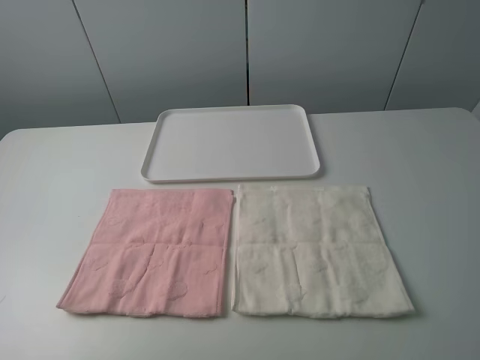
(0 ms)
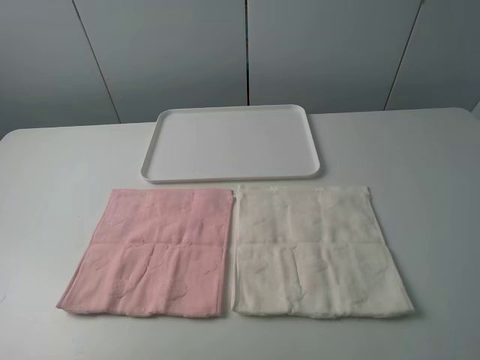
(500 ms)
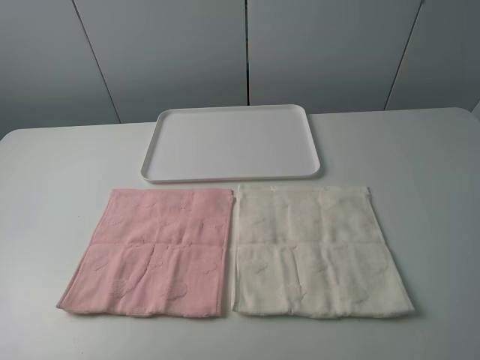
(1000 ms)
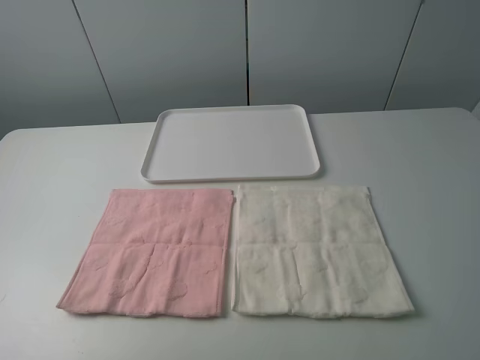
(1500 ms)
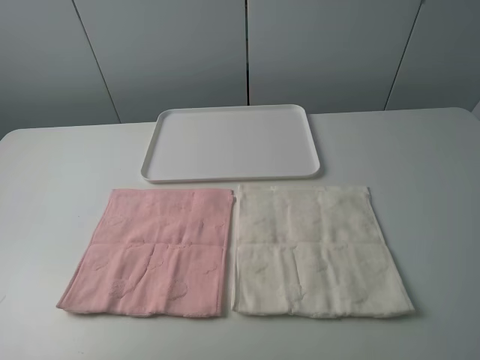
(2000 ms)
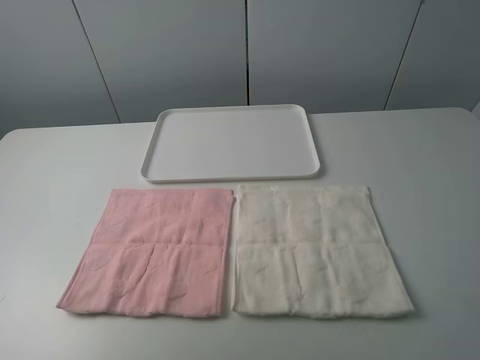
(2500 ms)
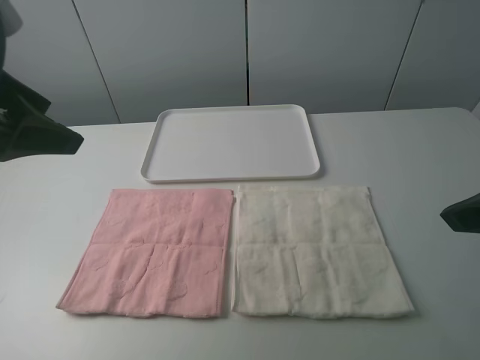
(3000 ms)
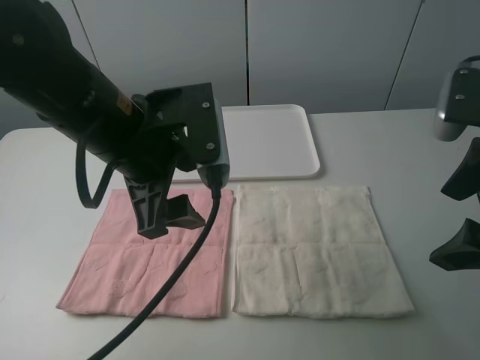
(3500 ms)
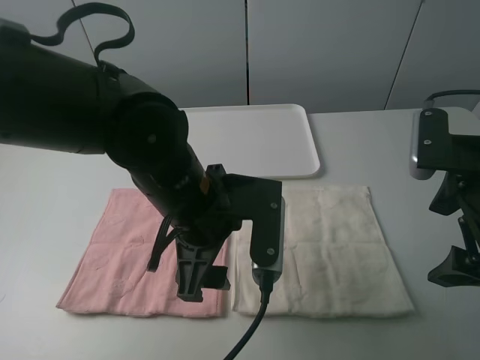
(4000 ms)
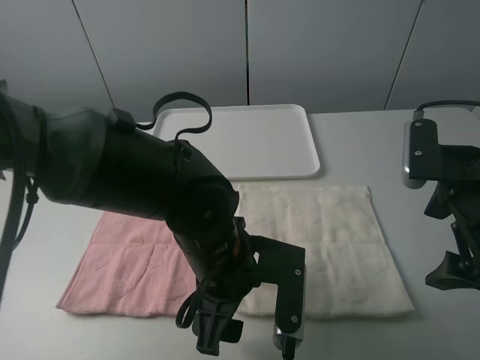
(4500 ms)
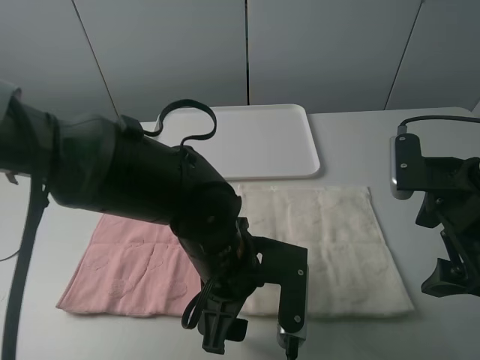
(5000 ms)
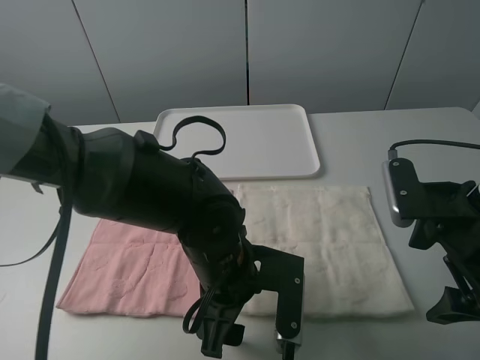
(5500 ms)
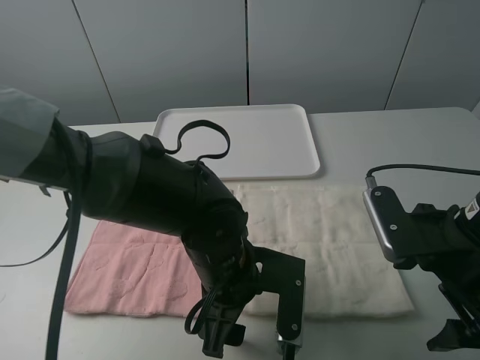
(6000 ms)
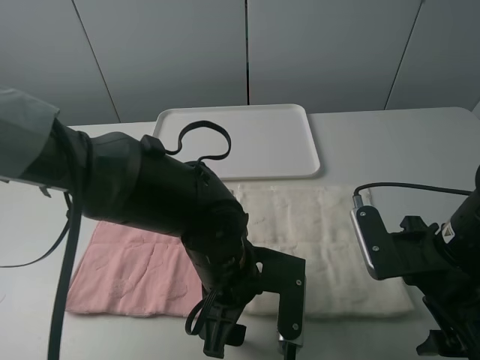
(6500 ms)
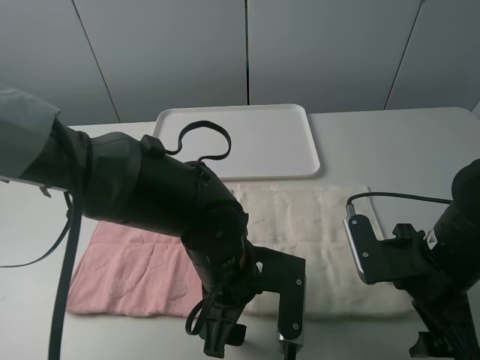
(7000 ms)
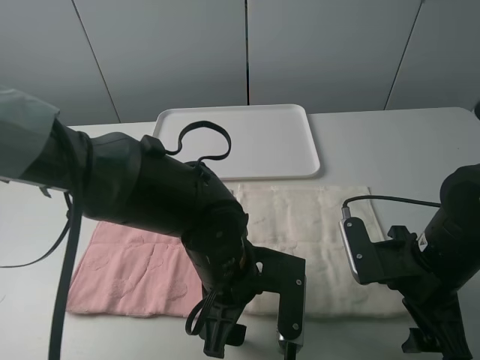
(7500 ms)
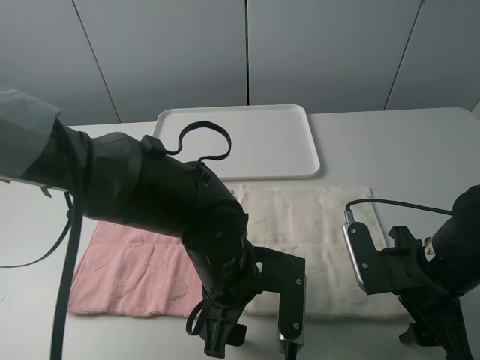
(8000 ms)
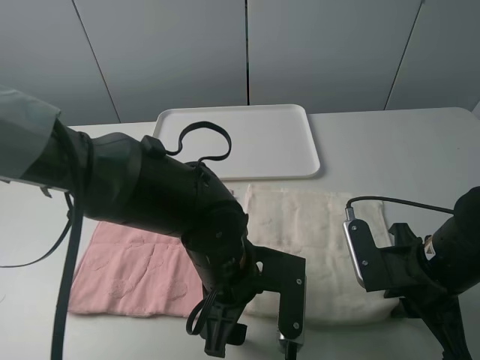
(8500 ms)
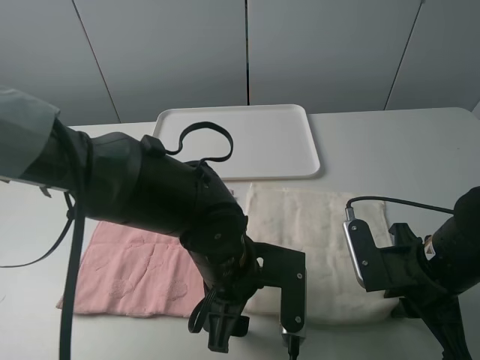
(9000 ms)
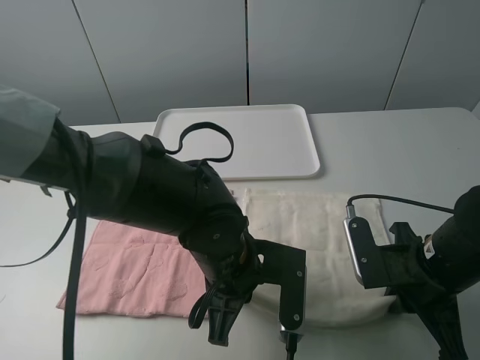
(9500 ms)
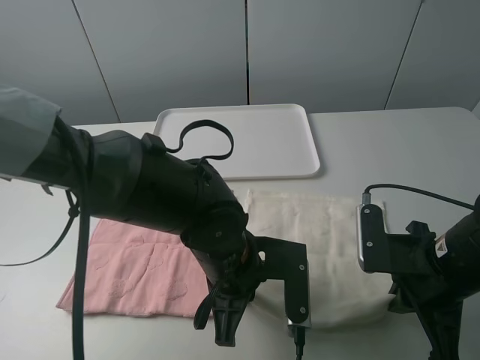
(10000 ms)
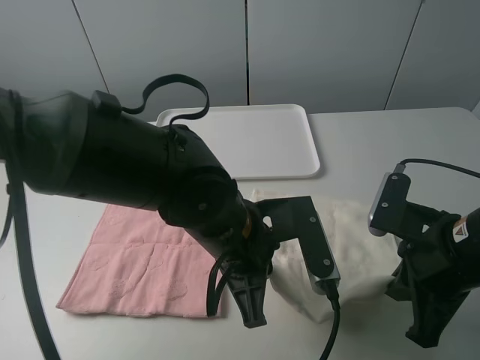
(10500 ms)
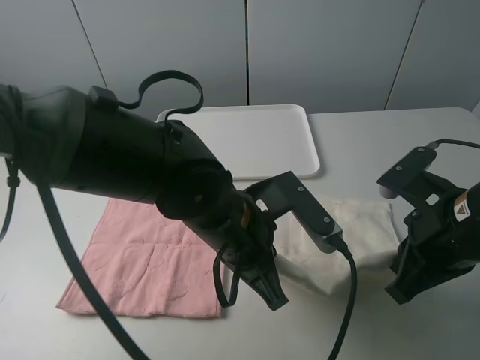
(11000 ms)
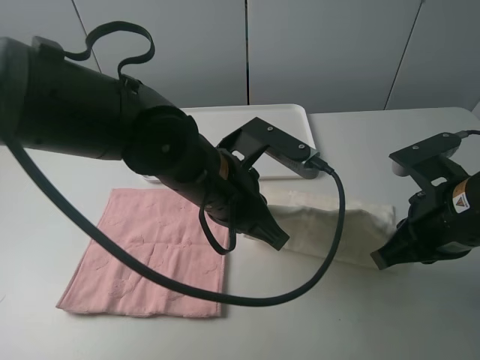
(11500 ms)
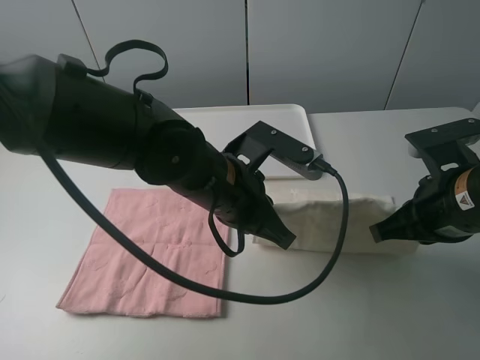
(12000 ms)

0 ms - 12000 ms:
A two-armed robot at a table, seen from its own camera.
Task of the whole recording: fold one of the towels by two grippers and place it on the tray,then fold another towel by two grippers and place it on the folded towel.
Step, 0 ms - 9000 ms: Grasp the white towel with the left gripper.
0 ms - 2000 ms: Neither gripper changes place.
2000 ms - 4000 ms: The right gripper goes roughly 20 cm forward. The left gripper travels to the right, forward and downward by about 35 cm.
4000 ms - 6000 ms: Both grippers travel together downward, approximately 5 cm.
6000 ms - 8000 ms: The right gripper shifts about 5 cm downward.
8000 ms - 10000 ms: The left gripper closes; the right gripper closes.
10000 ms - 12000 ms: Both grippers travel together upward, about 5 cm.

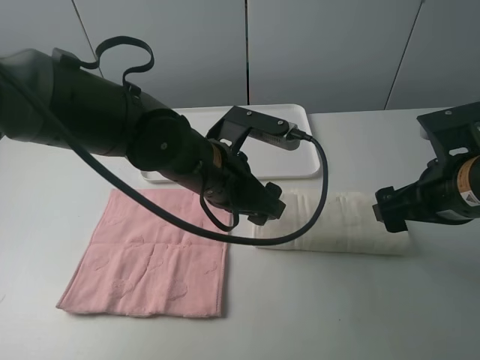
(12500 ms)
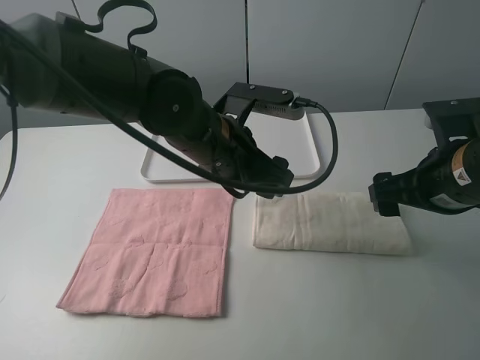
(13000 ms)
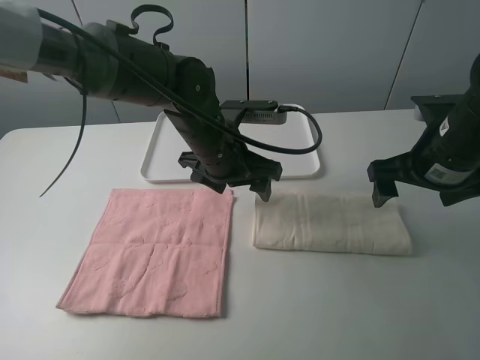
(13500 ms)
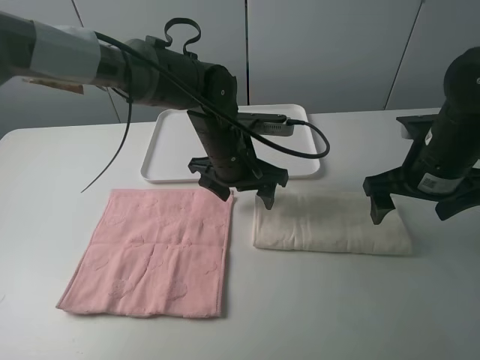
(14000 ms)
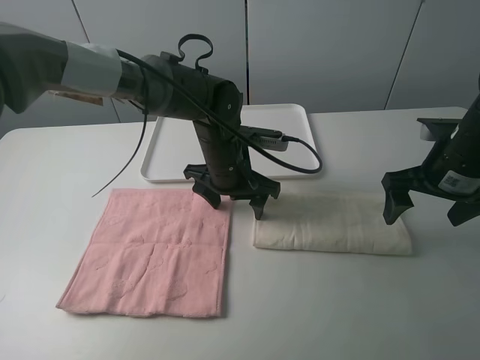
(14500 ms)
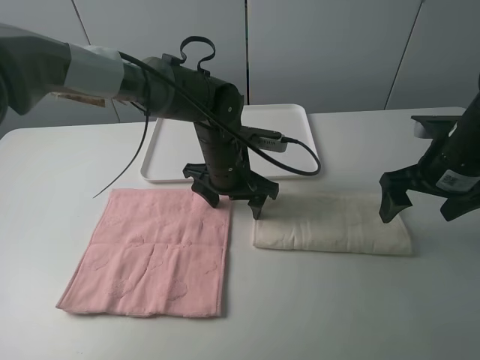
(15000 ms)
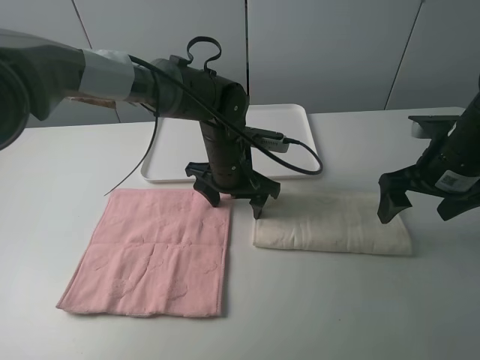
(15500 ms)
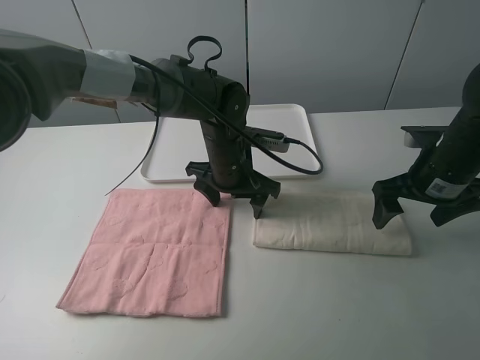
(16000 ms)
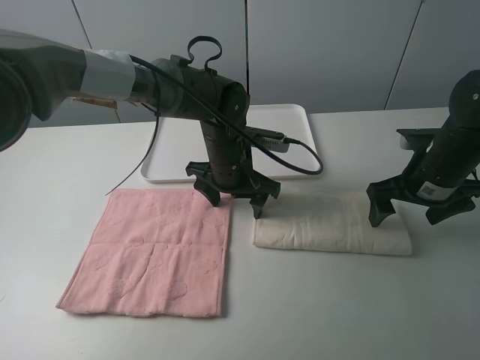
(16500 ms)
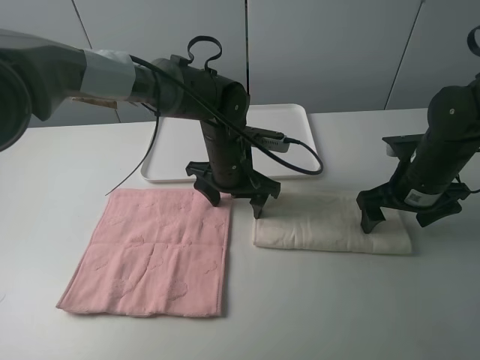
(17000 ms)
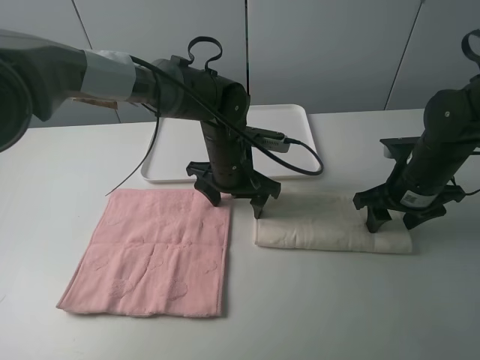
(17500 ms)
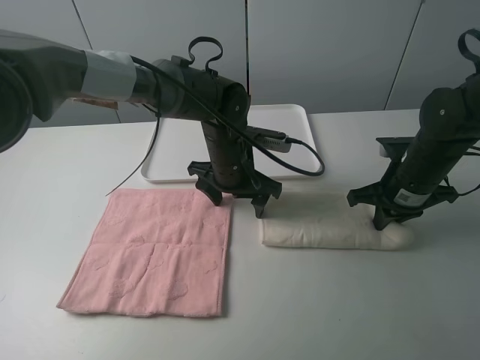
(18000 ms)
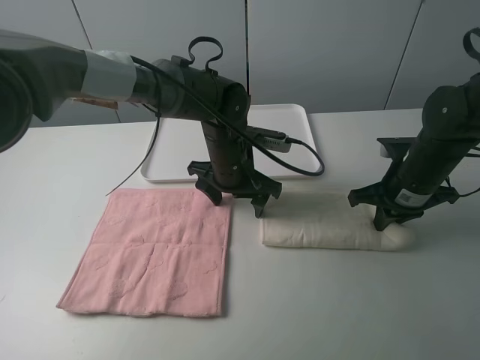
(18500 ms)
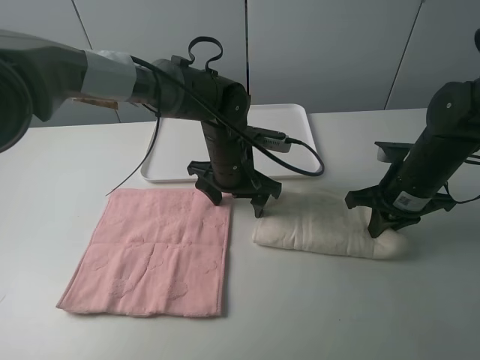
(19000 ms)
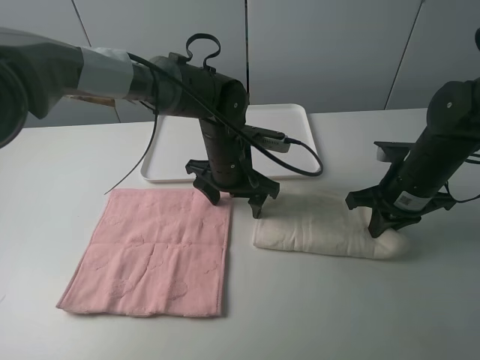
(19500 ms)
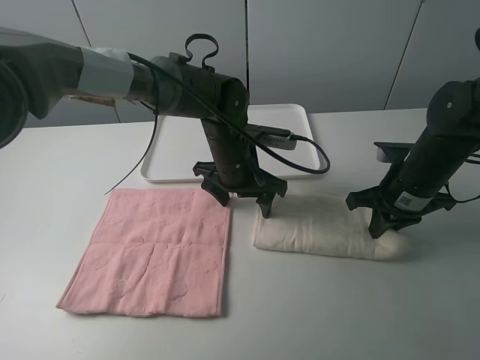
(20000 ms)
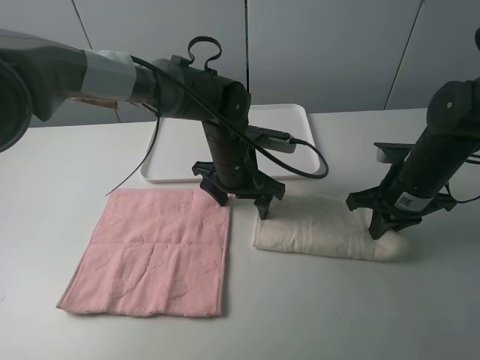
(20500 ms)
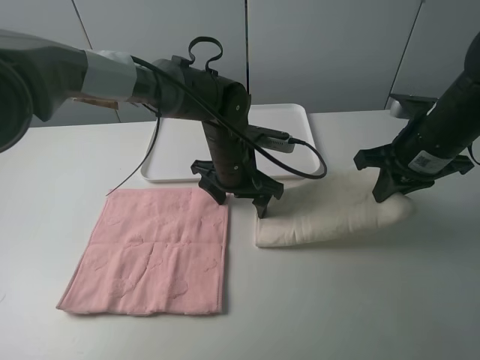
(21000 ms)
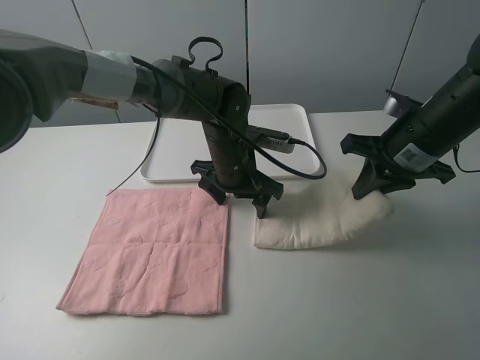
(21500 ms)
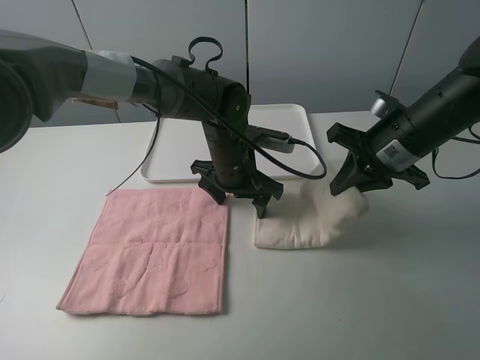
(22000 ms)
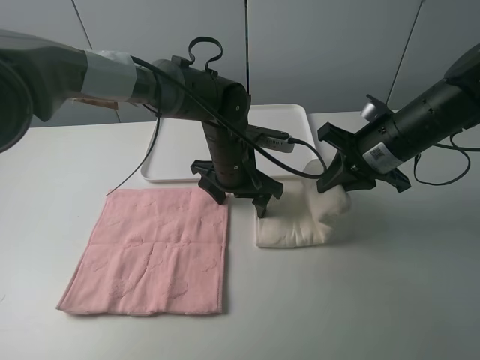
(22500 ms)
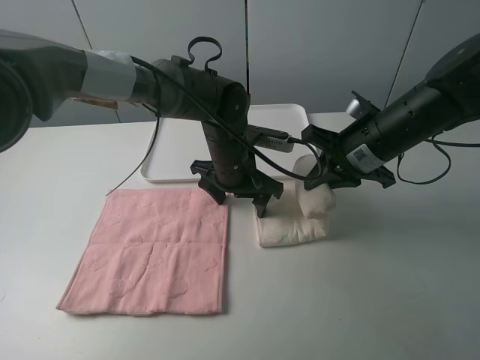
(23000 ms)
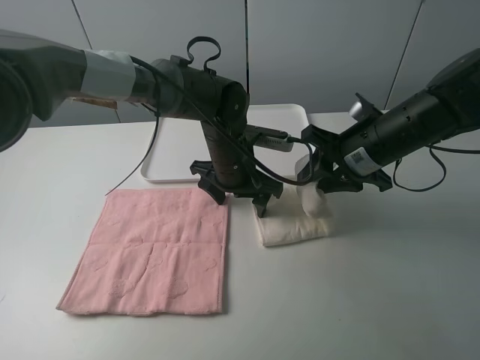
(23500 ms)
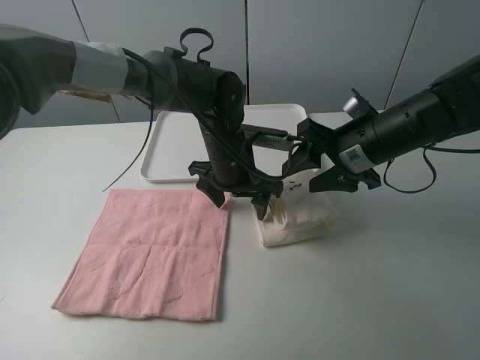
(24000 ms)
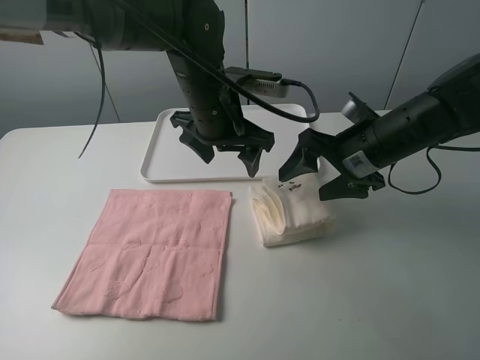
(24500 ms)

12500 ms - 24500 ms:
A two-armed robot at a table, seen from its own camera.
Task of the whole recording: fold one of the towels by two grippers and place it on the tray,then fold another towel by two grippers and place it on the folded towel.
Step, 13000 ms - 15500 ms: Press the white towel with the left gripper.
Step, 16000 ms - 18000 ms: Grasp the white towel with the right gripper.
Step, 18500 ms - 24000 ms: Fold the white towel from right to left with right gripper.
12500 ms - 14500 ms: The left gripper heads forward and downward, covering roughly 10 cm. Meanwhile the right gripper is displaced forward by approximately 5 cm.
14500 ms - 16500 ms: The grippers move only a little.
16500 ms - 18500 ms: The right gripper closes its fingers.
18500 ms - 20500 ms: The grippers make only small movements.
20500 ms - 22500 ms: The right gripper is displaced upward by approximately 5 cm.
22500 ms - 24500 ms: The right gripper opens. The left gripper heads upward, covering about 10 cm.

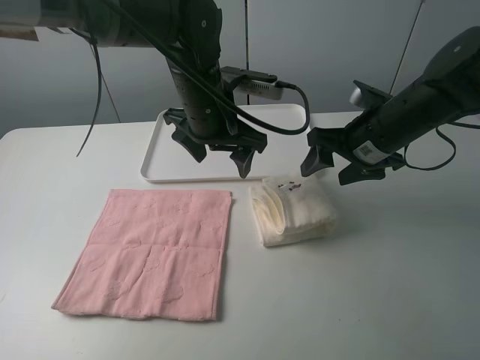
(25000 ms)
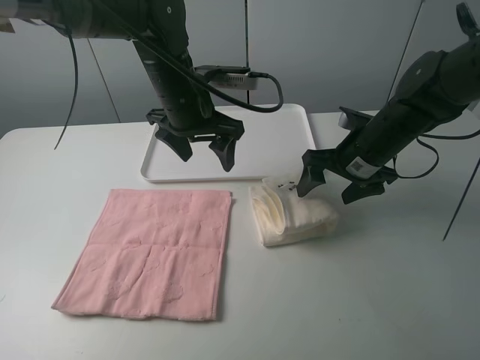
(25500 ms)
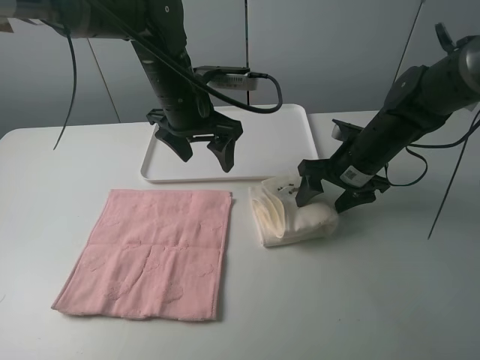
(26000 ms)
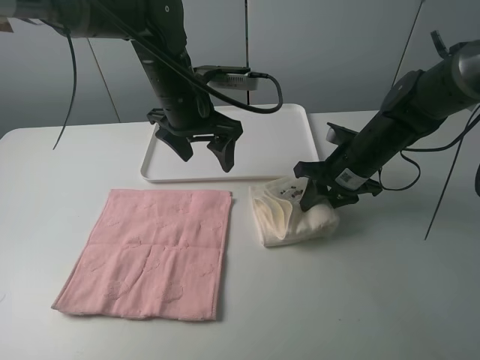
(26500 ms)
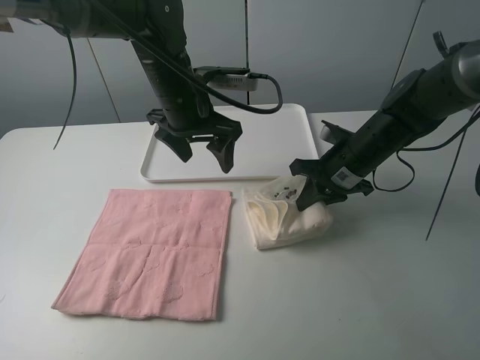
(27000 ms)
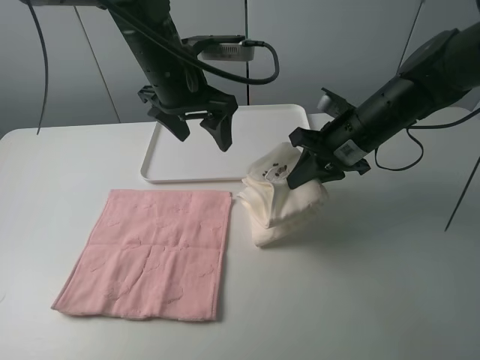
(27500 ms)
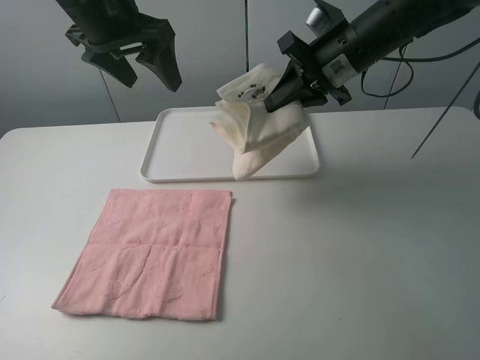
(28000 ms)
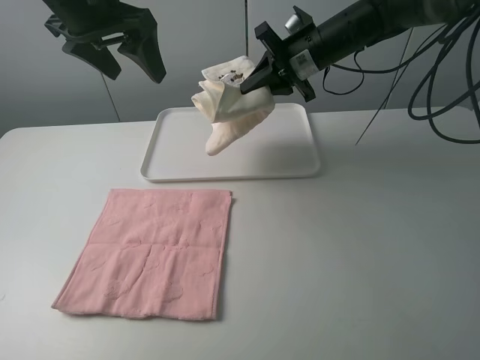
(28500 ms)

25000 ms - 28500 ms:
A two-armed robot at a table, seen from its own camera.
Task of the whole recording: fold one of the towels by two grippers and place it on the tray,then fold another towel by two grippers and place it on the folded towel.
Step, 25000 ms - 26500 ms: Grasp the white towel with the right gripper.
25000 ms - 27000 ms: The right gripper shifts some 5 cm downward, and closes up.
27000 ms - 28500 ms: The left gripper shifts approximately 15 cm upward and to the left, while the right gripper moves forward, upward and to the left, roughly 15 cm.
